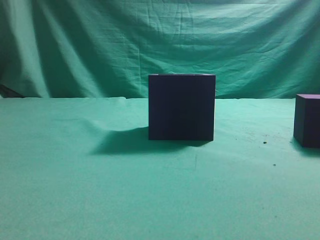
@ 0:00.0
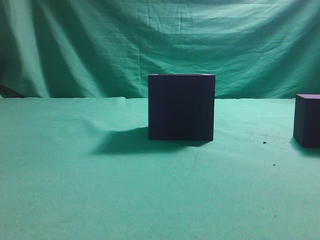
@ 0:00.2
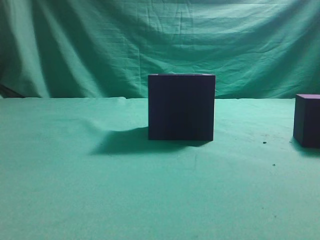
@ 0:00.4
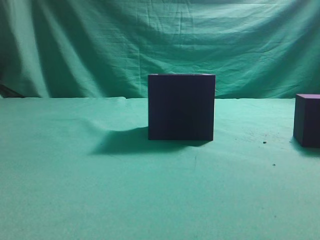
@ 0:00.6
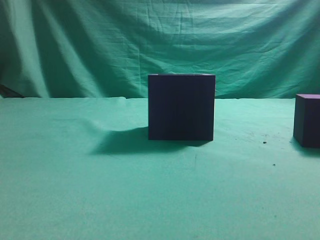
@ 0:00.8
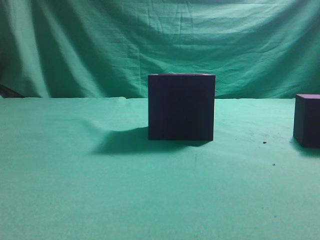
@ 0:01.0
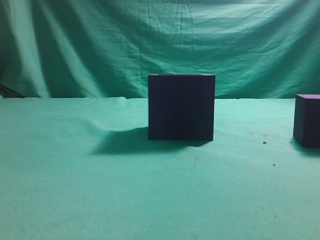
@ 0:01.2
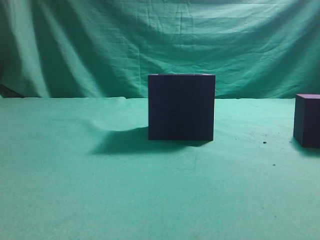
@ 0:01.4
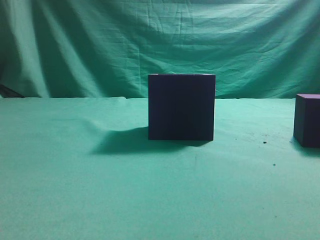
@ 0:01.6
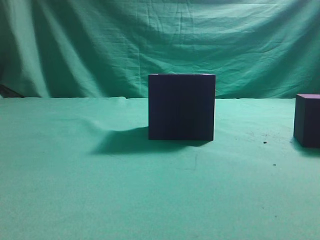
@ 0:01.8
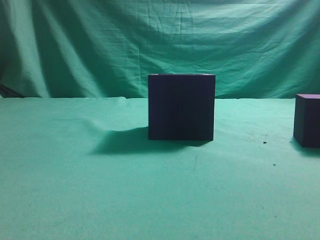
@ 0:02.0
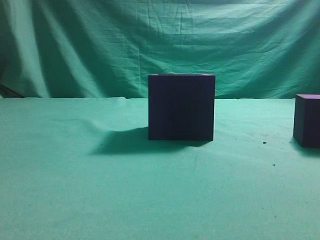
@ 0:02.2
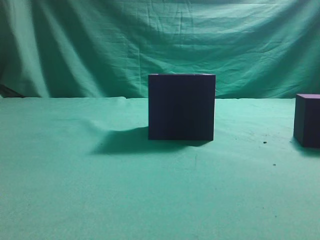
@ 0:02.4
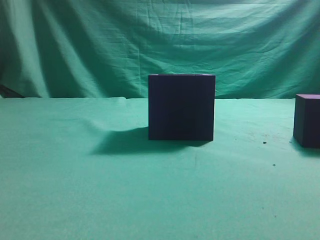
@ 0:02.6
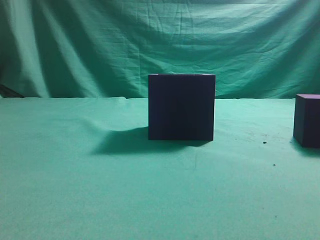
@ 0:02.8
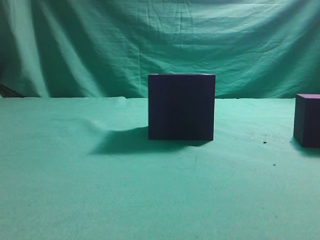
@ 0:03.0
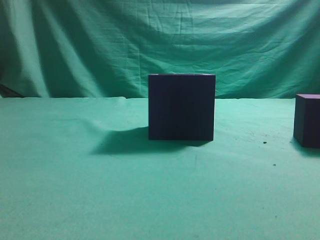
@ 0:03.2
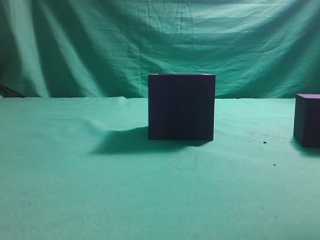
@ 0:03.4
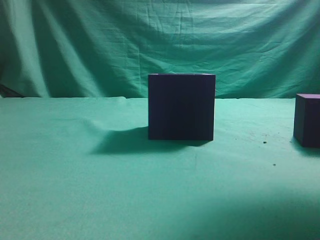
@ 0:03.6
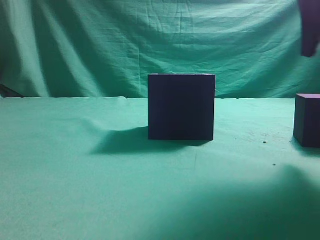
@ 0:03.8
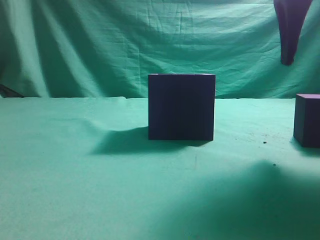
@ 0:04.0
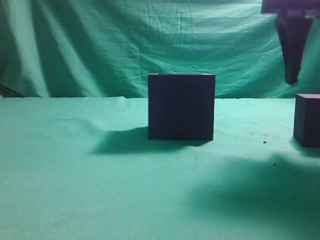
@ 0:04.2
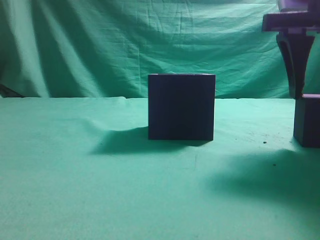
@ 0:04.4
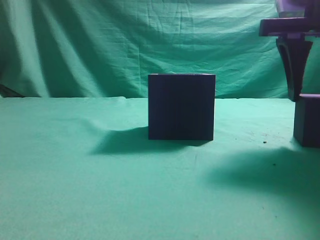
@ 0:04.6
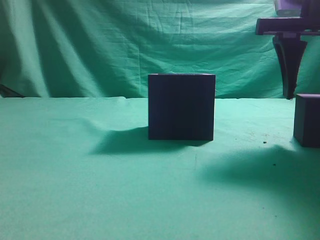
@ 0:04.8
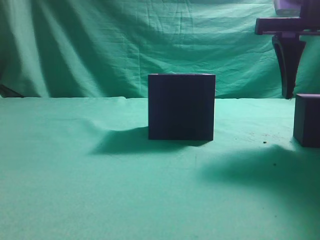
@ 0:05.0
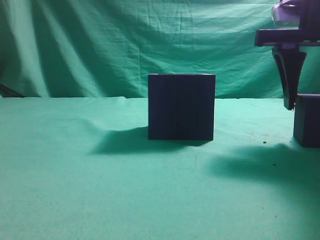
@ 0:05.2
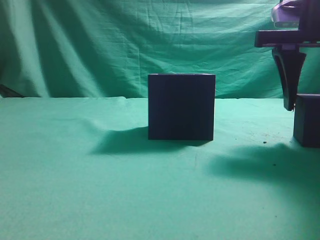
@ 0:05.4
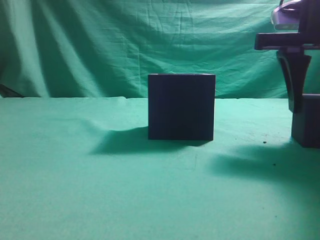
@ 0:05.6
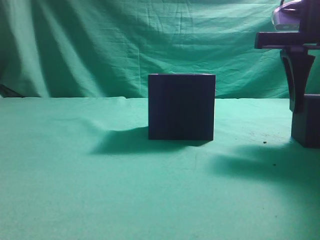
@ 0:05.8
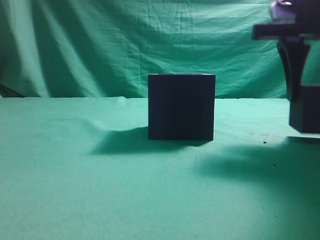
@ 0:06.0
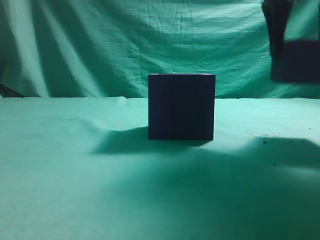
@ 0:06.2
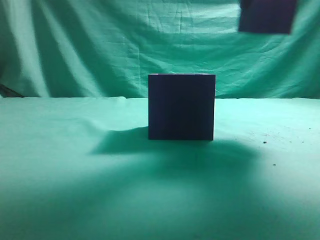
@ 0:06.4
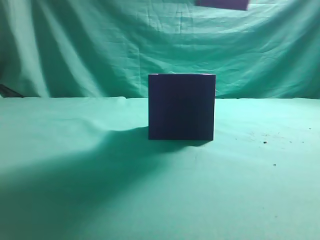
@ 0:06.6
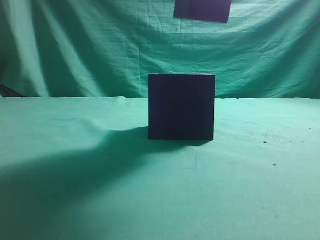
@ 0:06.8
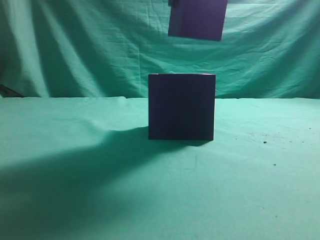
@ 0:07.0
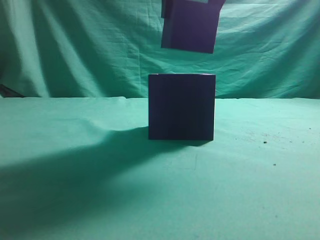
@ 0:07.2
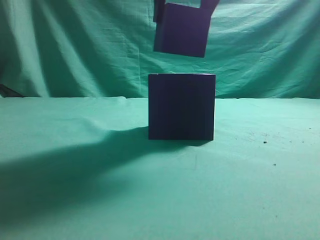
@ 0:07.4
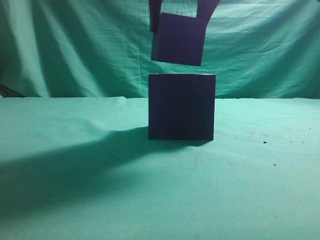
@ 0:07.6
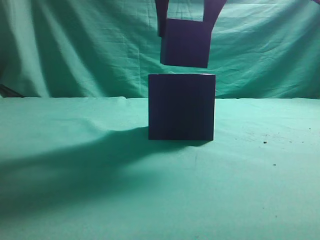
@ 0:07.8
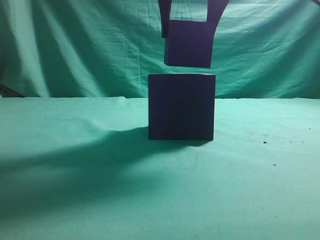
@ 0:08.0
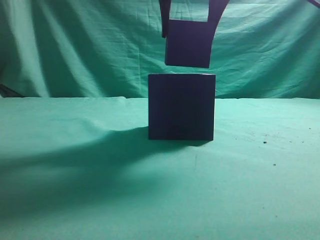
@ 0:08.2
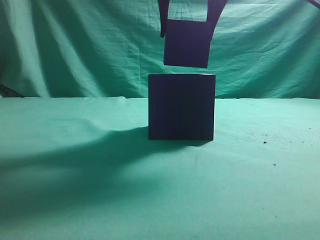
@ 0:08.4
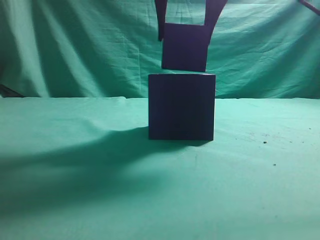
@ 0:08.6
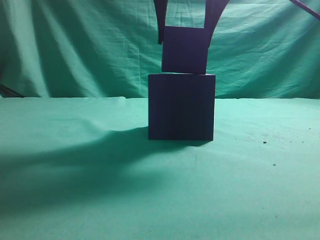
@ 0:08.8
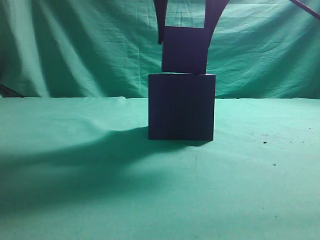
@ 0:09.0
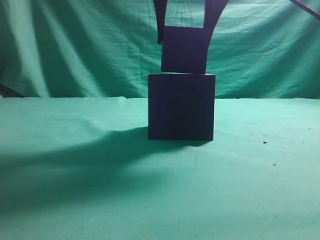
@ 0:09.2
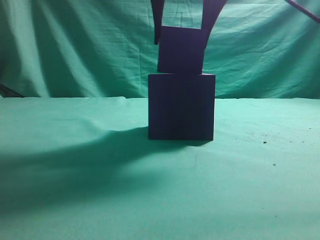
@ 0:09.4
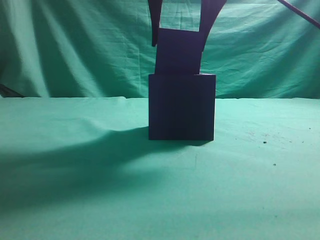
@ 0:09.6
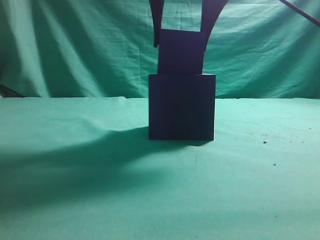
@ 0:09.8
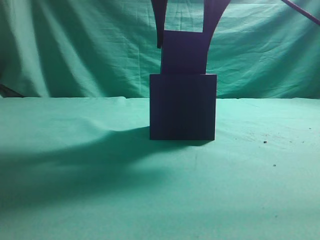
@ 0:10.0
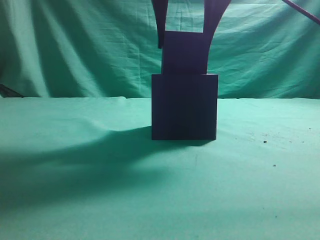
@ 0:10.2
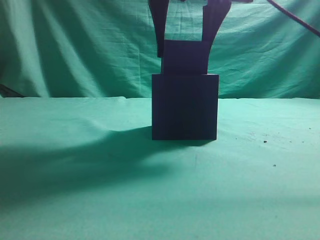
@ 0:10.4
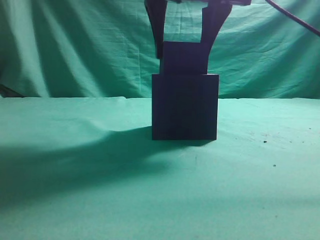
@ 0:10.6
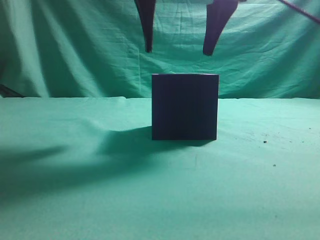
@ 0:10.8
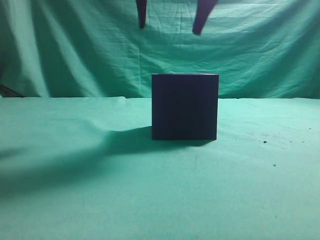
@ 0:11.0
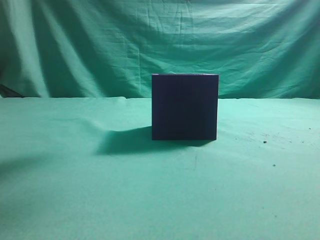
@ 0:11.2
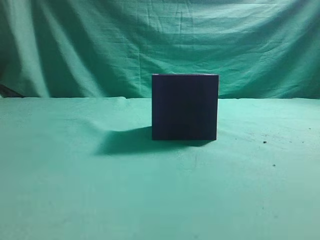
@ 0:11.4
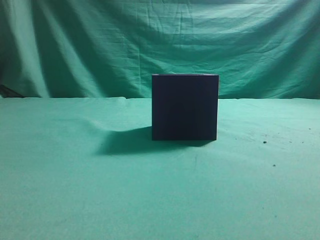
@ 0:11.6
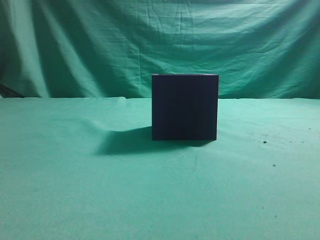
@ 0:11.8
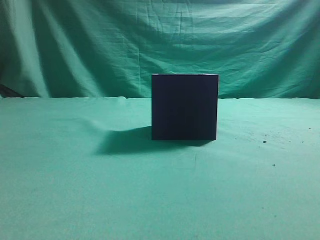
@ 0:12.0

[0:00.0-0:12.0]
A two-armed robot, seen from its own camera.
Task of the whole recording: pick up the cube block and place it into the cube groove.
Step, 0:00.0 to 0:06.2: Grasp the cube.
Step, 0:06.4 to 0:11.0: Place cube into the cube-shaped recess.
0:03.0 to 0:04.4: The right gripper travels forward, downward and to the left by about 15 cm, and opens.
0:04.4 to 0:06.0: There are only small adjustments of the grippers.
0:06.0 to 0:07.6: The right gripper is displaced to the left and upward by roughly 15 cm.
0:07.6 to 0:09.0: There are only small adjustments of the grippers.
0:09.0 to 0:10.4: Neither gripper changes place.
0:10.4 to 0:12.0: The right gripper heads backward, to the right and upward, covering approximately 25 cm, and closes.
